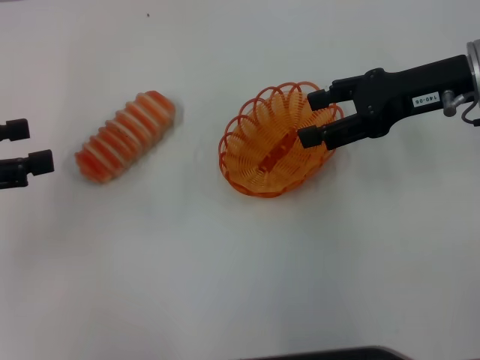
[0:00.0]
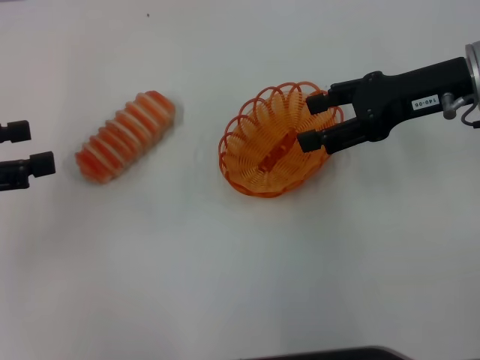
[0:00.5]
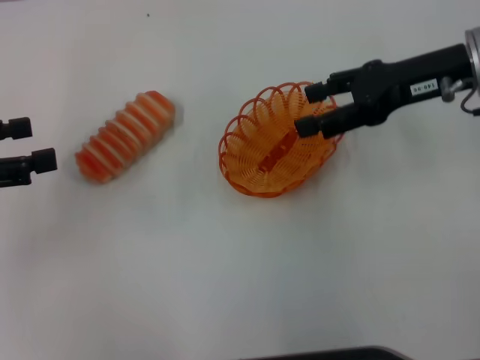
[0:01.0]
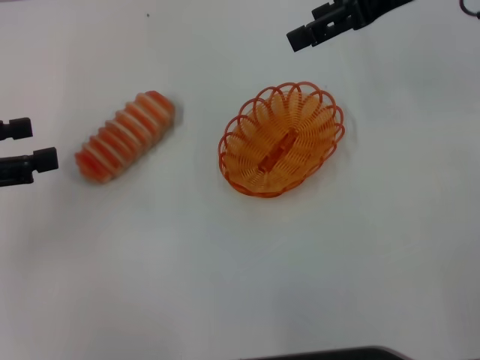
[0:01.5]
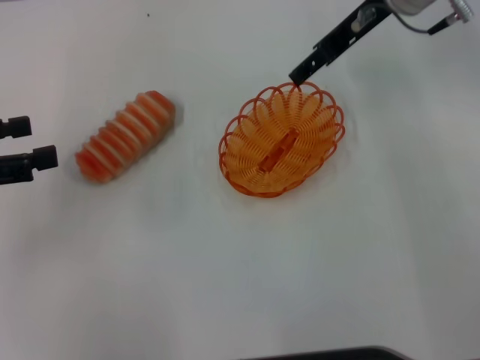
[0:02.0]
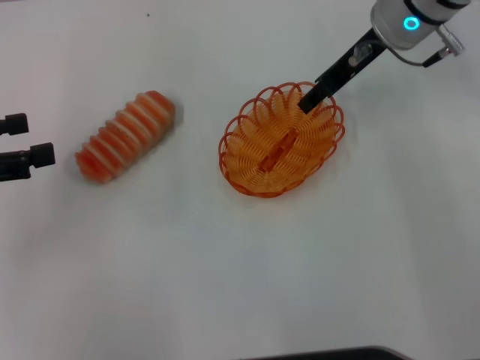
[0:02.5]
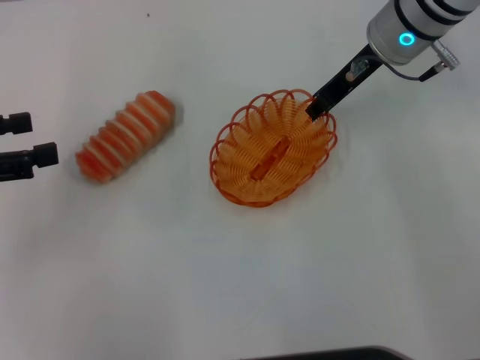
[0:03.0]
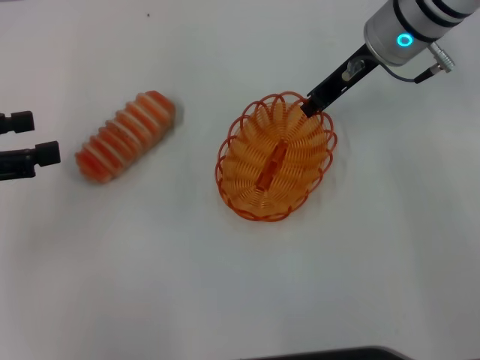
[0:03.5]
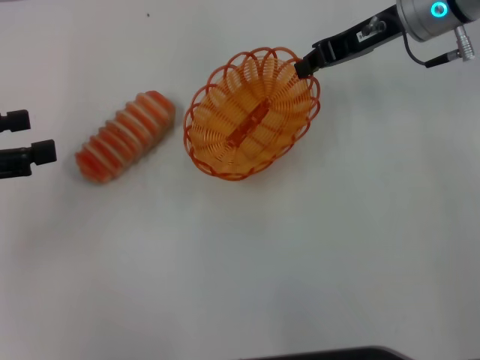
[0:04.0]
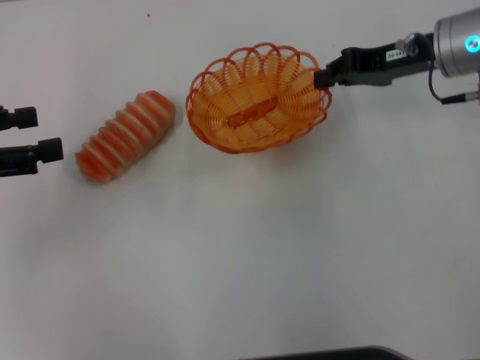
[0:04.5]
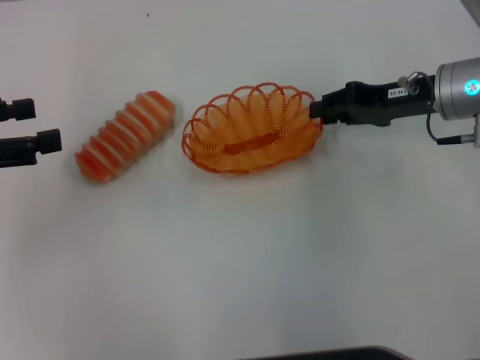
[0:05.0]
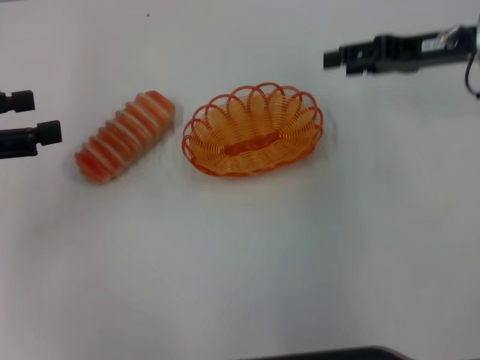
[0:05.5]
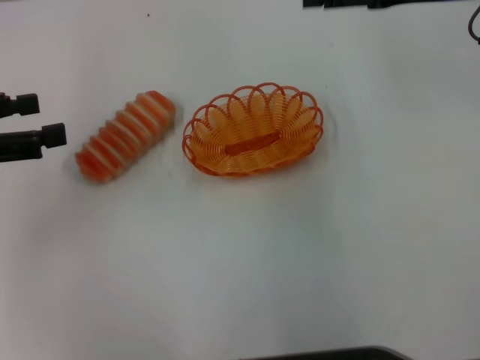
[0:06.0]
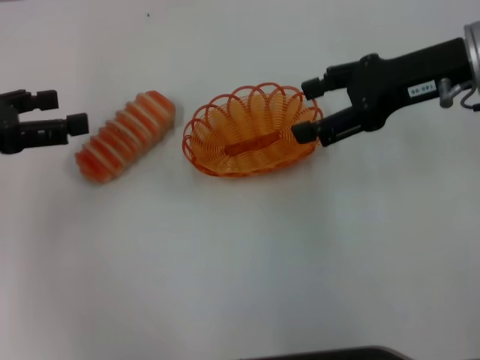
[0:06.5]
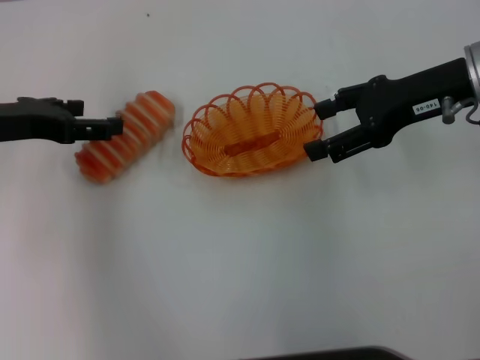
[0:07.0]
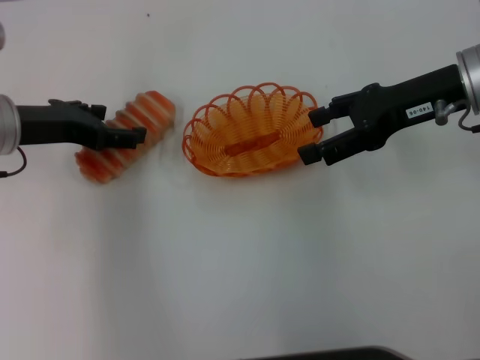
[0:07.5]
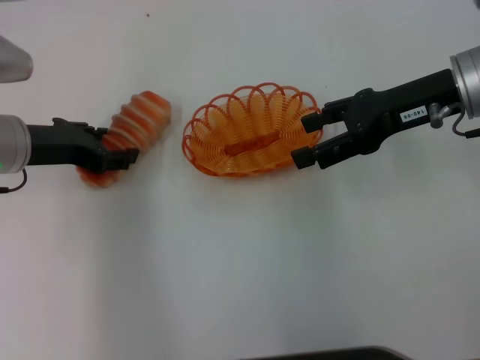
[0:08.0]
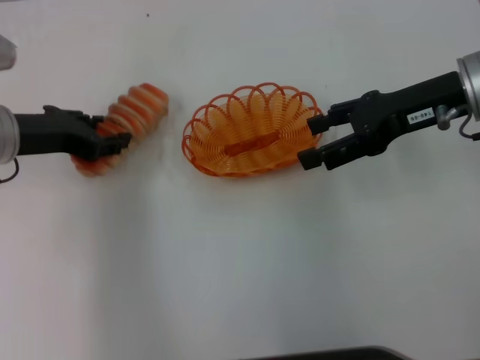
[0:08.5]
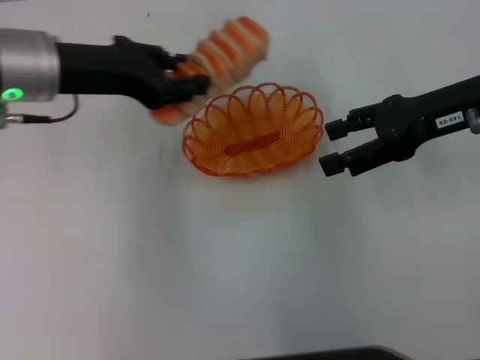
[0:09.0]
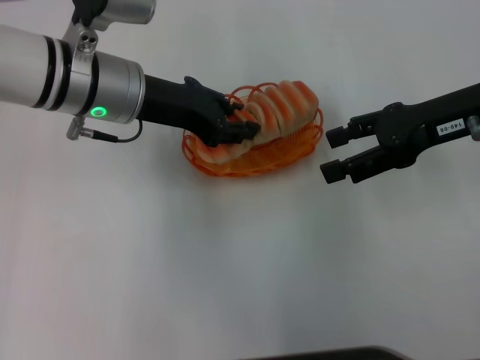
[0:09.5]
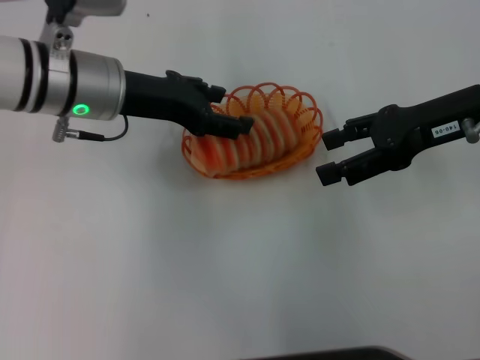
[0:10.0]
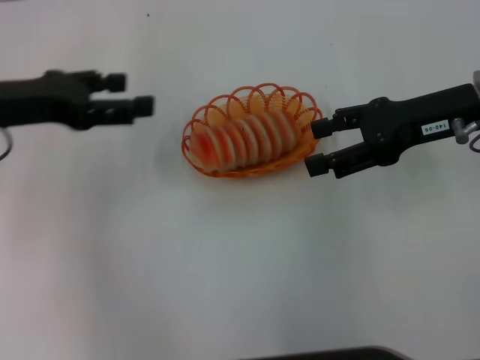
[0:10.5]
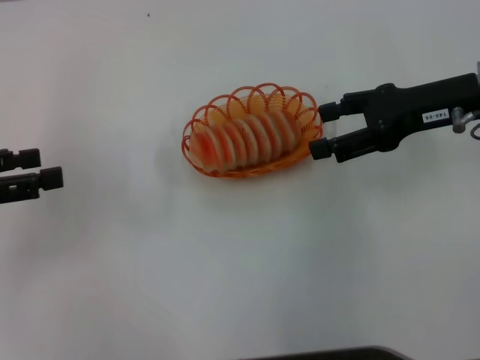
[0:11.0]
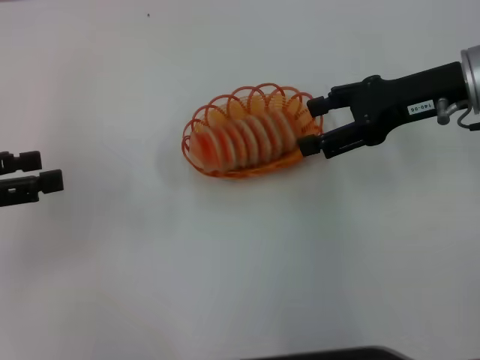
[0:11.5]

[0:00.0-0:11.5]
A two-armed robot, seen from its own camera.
Step, 0:00.0 to 0:03.5: Pick up the basket with the right gripper.
Step, 0:04.0 to 0:05.0: Place the basket in the center of view with the right gripper.
Step, 0:05.5 to 0:08.5: Pick up the long bread with the left gripper.
Step, 0:09.0 to 0:10.0: Place the long bread into the basket with the left gripper.
0:00.0 to 0:02.0: The right gripper shifts some 10 cm forward and to the left.
0:02.0 to 0:04.0: The right gripper closes up.
0:04.0 to 0:06.0: The right gripper goes approximately 5 cm to the right, reaches some 5 cm downward, then returns, and opens its fingers.
0:06.0 to 0:07.5: The left gripper shifts about 10 cm to the right and forward; the right gripper is displaced downward by approximately 5 cm.
0:07.5 to 0:09.5: The left gripper shifts some 10 cm to the right, and closes up.
0:09.5 to 0:11.5: The left gripper heads to the left and backward, covering about 25 cm, and opens up.

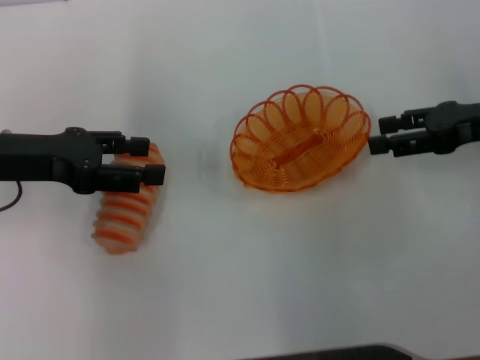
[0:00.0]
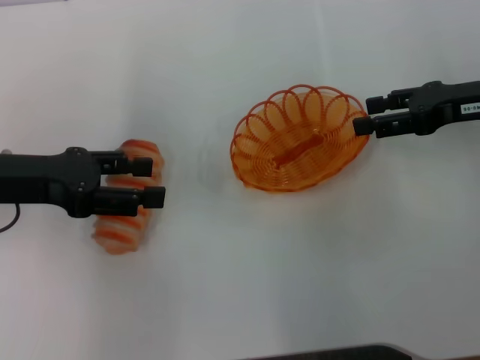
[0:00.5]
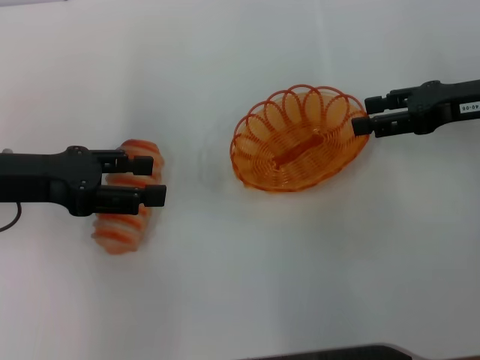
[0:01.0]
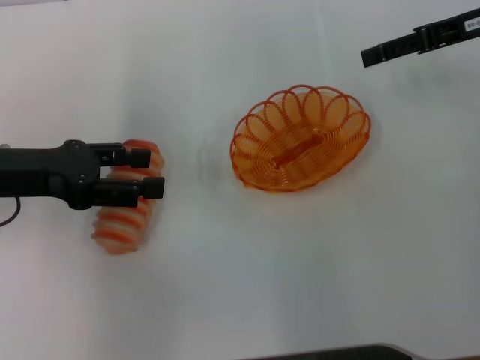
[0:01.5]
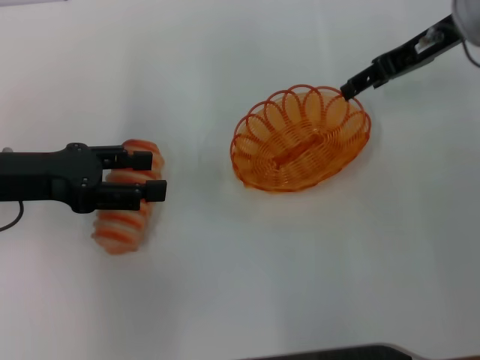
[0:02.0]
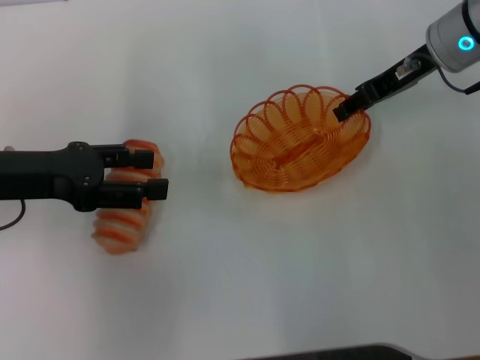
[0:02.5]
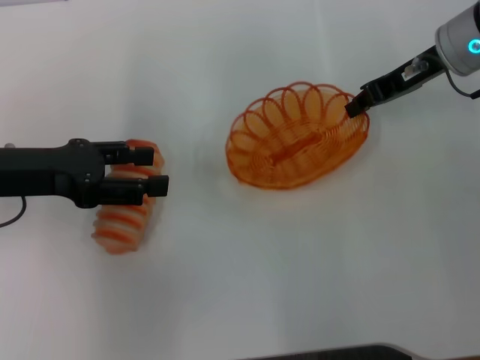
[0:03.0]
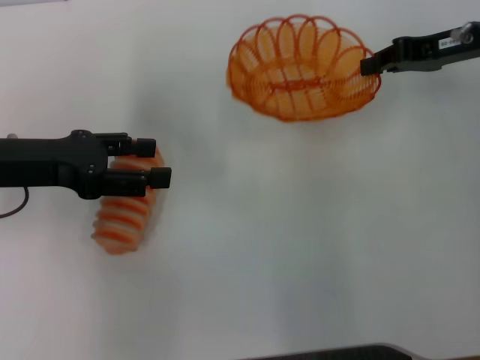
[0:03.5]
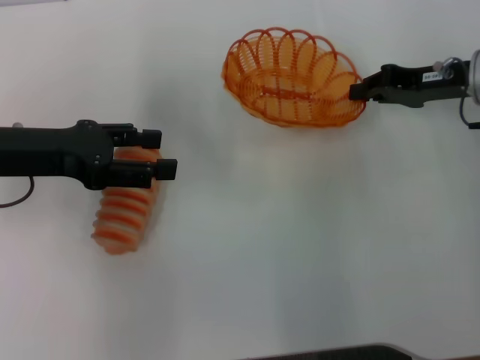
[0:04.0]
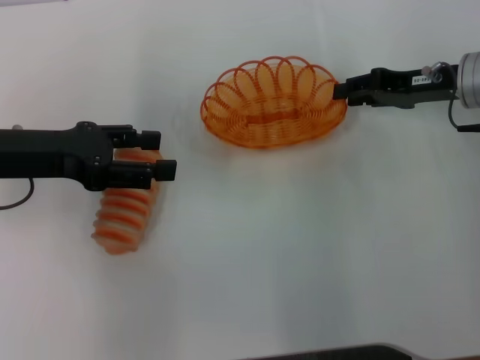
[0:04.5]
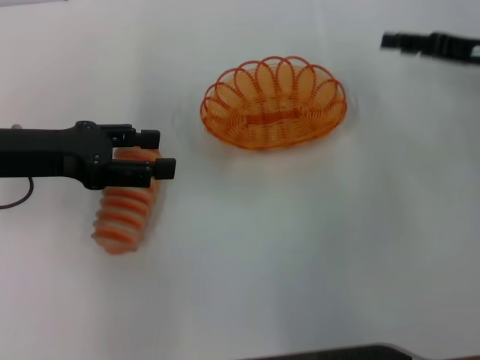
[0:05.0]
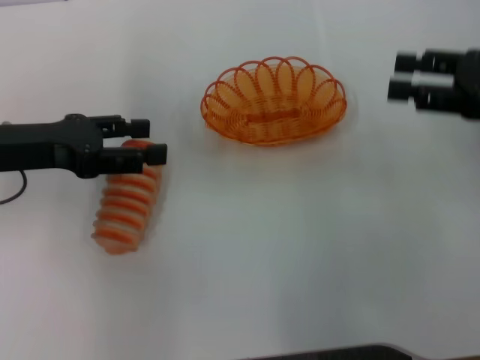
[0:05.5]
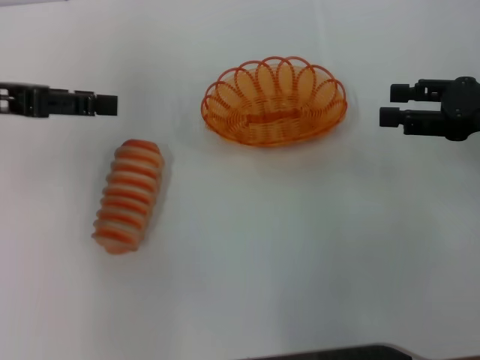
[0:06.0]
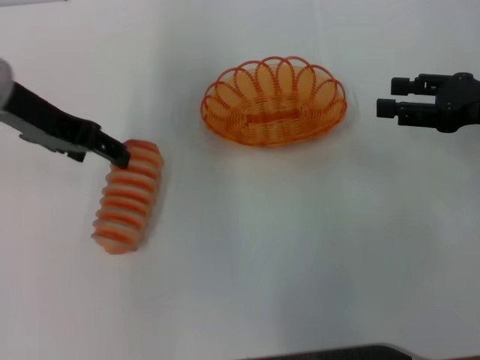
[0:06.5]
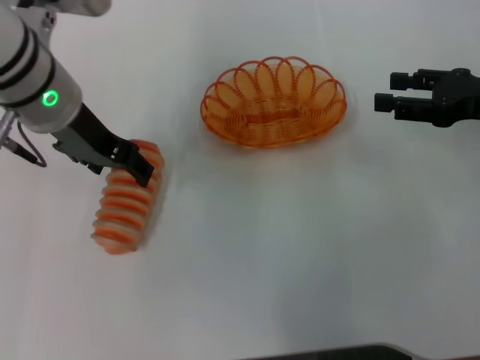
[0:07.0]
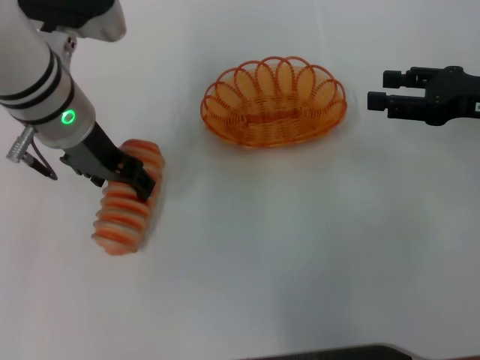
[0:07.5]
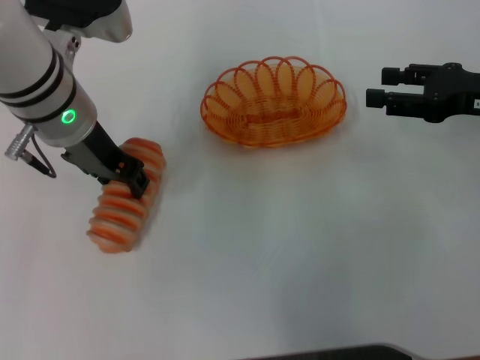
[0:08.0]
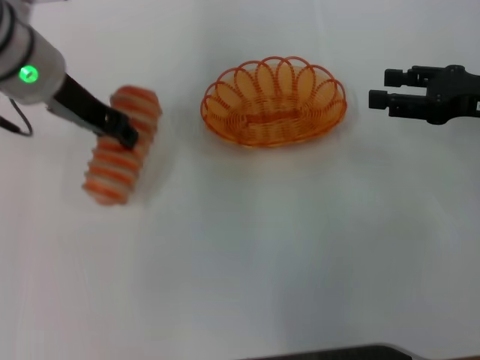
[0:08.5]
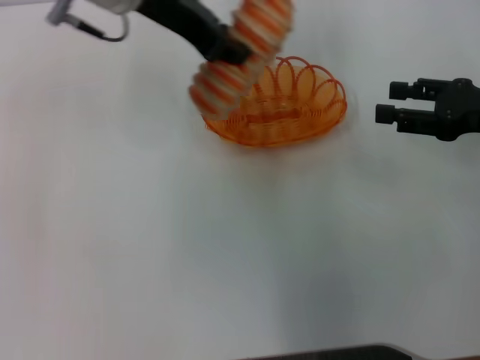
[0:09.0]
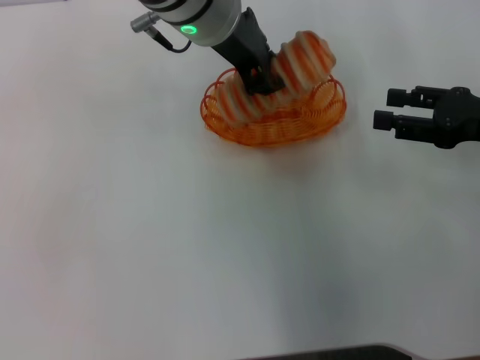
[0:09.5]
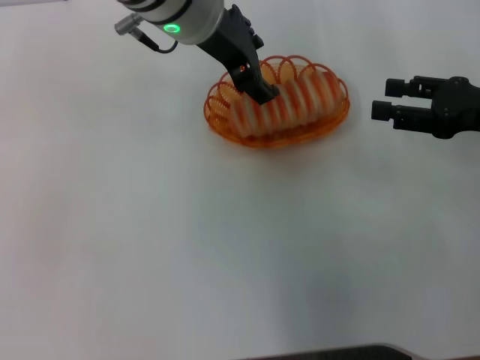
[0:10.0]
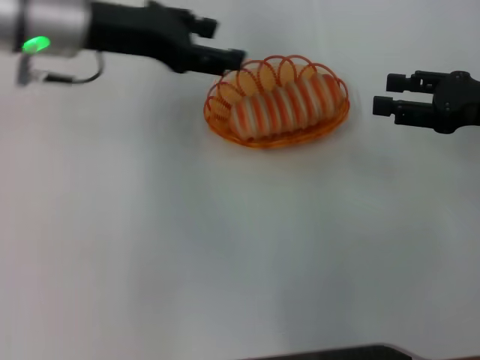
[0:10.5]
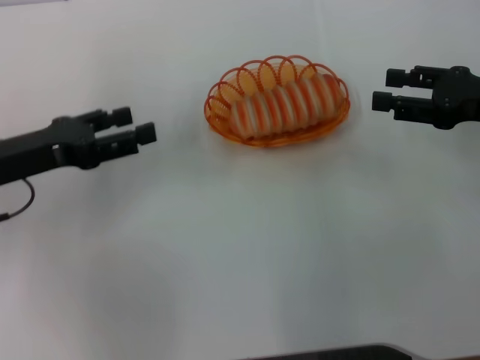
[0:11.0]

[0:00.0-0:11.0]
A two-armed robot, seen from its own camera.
Step, 0:00.0 to 0:03.0: Pick up the basket with the right gripper.
Step, 0:03.5 to 0:04.5: Place the basket in the center of view with the right gripper.
Step, 0:05.0 to 0:08.0: Pick up the long bread with the left gripper.
Step, 0:08.5 to 0:10.0: Place the long bread into the basket with the left gripper.
0:00.0 to 0:02.0: The right gripper is displaced forward and to the left by some 10 cm.
0:02.0 to 0:03.5: The right gripper ends up approximately 5 cm from where it was, and closes.
0:03.5 to 0:05.5: The right gripper moves backward, about 10 cm, and opens its fingers.
0:05.5 to 0:07.5: The left gripper shifts approximately 10 cm to the right.
0:07.5 to 0:09.0: The left gripper heads upward, covering roughly 10 cm, and closes up.
0:09.0 to 0:11.0: The left gripper moves to the left, downward and backward, approximately 25 cm, and opens its fingers.

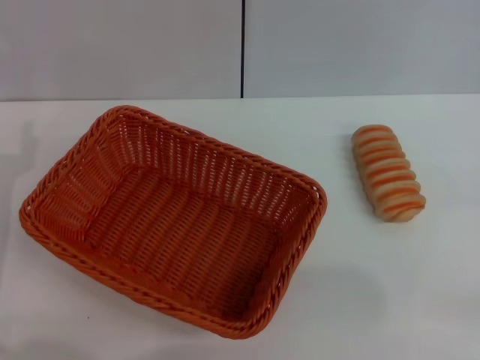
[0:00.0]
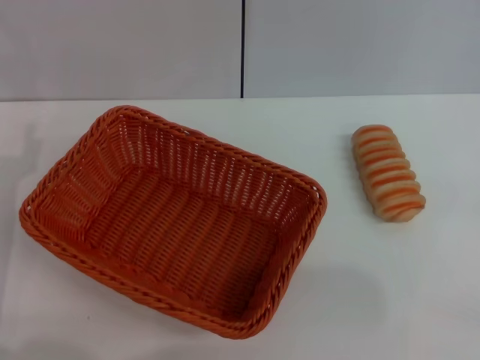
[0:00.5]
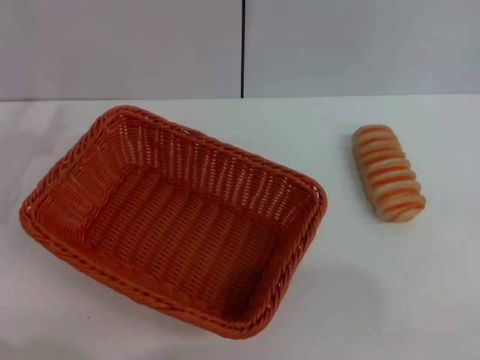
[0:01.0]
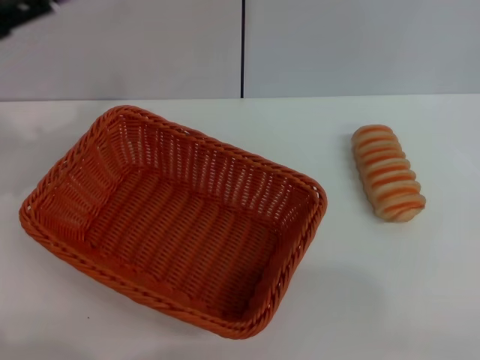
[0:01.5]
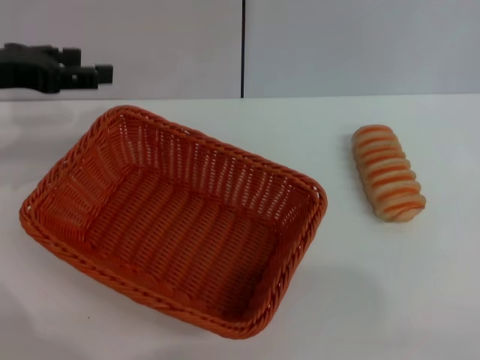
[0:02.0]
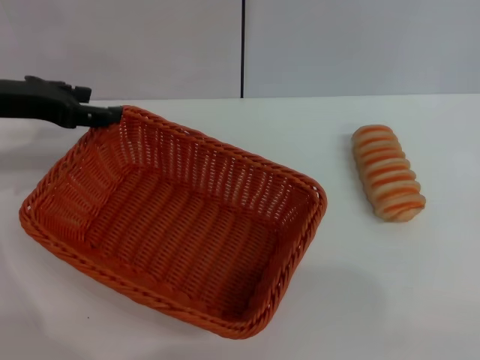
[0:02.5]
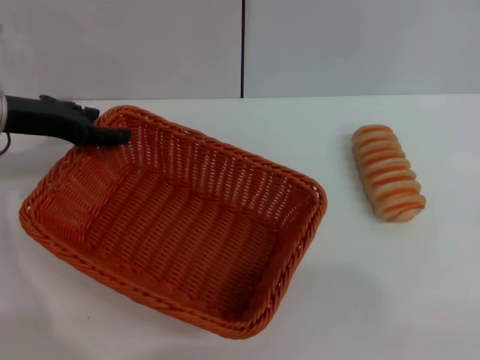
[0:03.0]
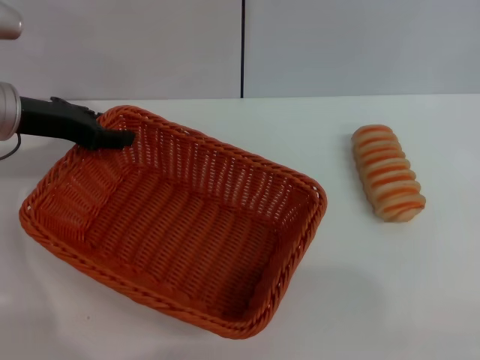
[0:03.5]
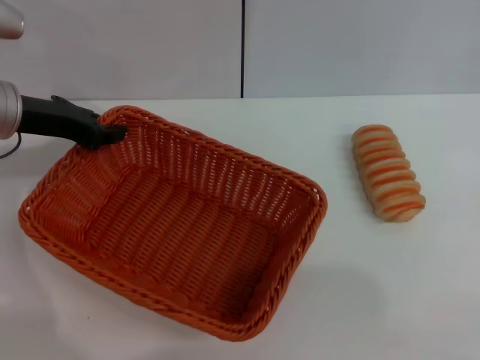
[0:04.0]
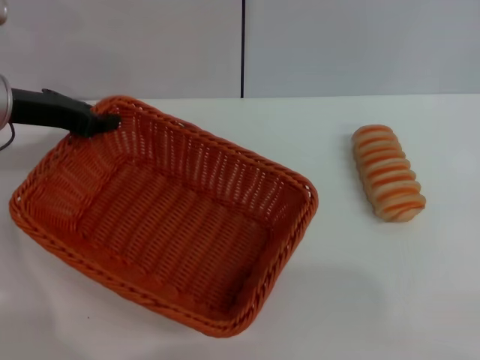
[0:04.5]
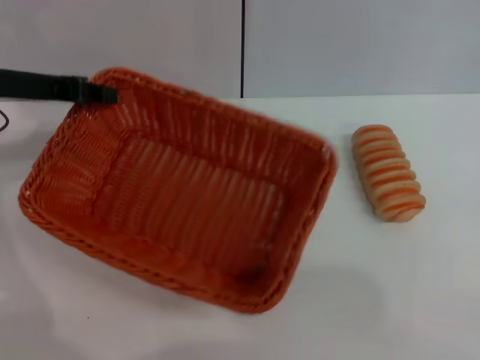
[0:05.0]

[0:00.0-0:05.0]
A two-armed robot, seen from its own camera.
0:00.0 to 0:02.5: The left gripper heads forward and upward, covering about 15 cm.
0:02.5 to 0:05.0: The left gripper closes up.
